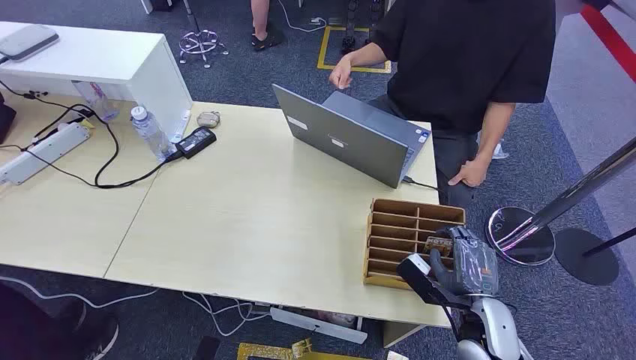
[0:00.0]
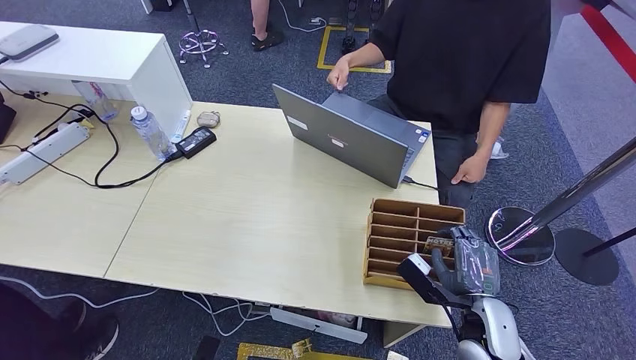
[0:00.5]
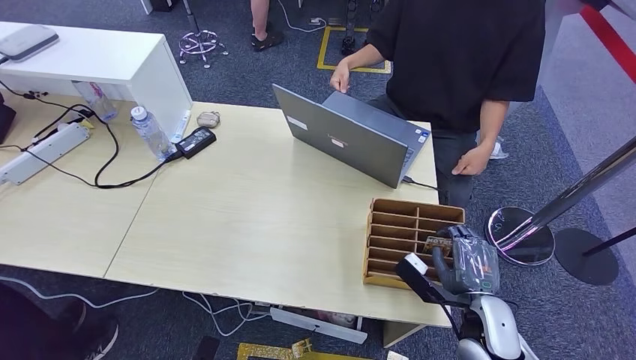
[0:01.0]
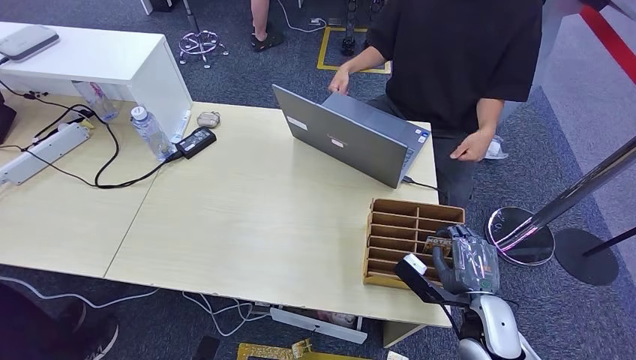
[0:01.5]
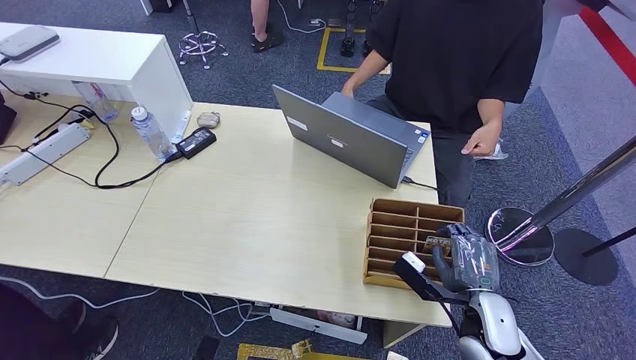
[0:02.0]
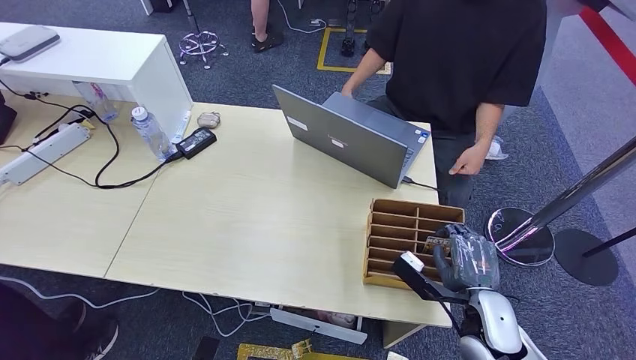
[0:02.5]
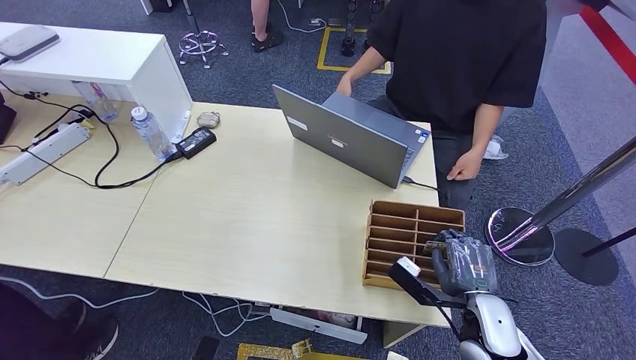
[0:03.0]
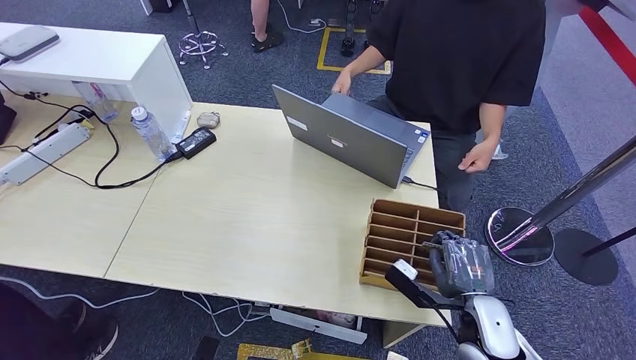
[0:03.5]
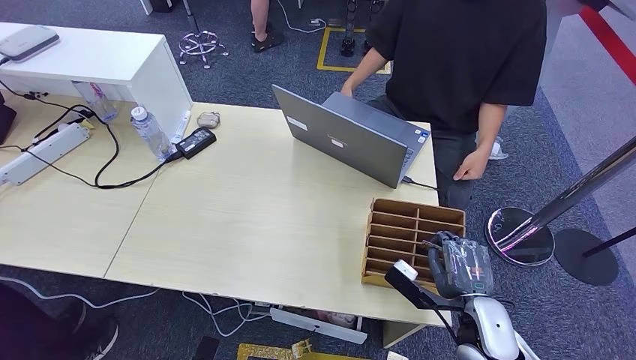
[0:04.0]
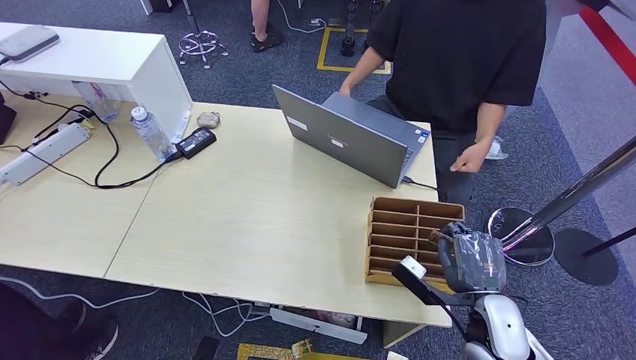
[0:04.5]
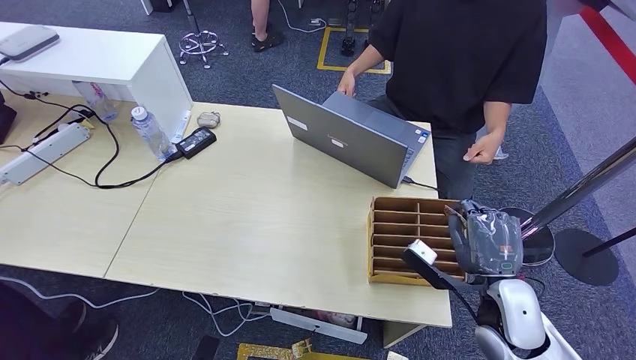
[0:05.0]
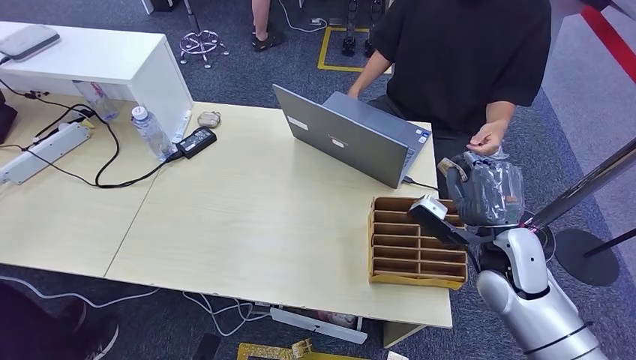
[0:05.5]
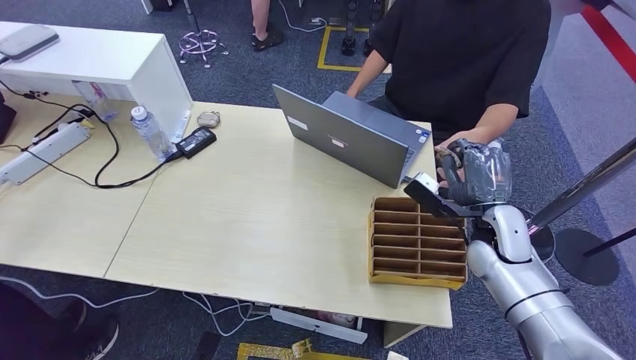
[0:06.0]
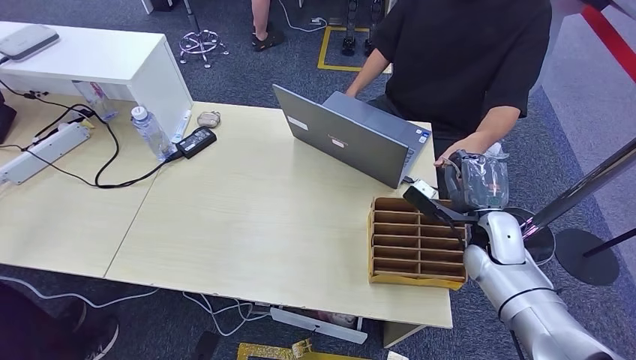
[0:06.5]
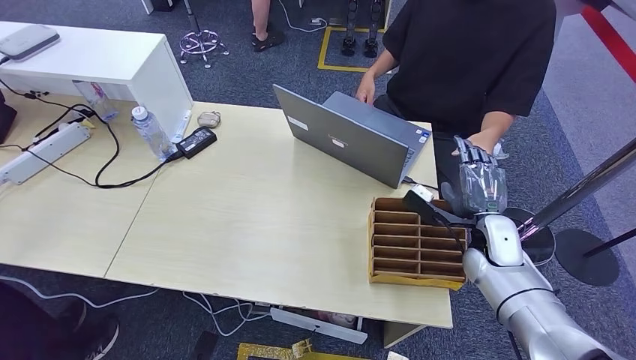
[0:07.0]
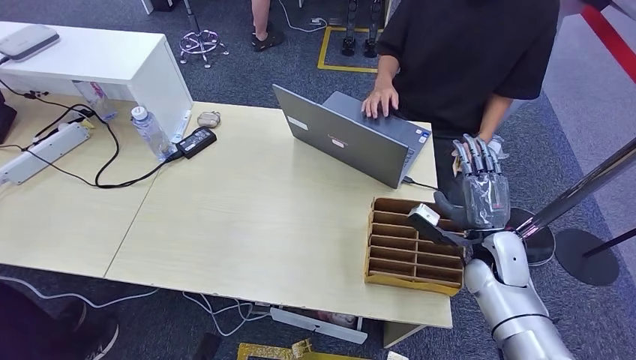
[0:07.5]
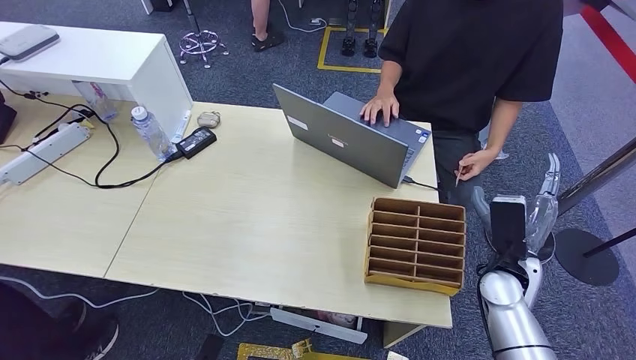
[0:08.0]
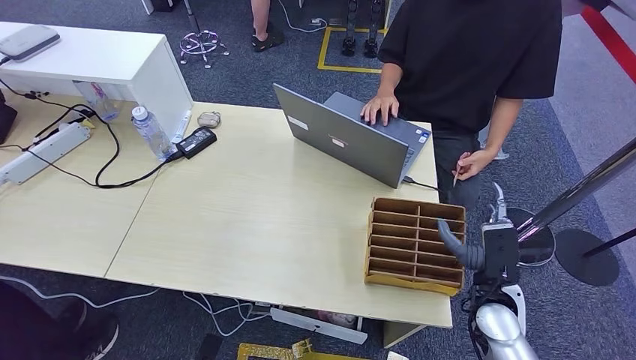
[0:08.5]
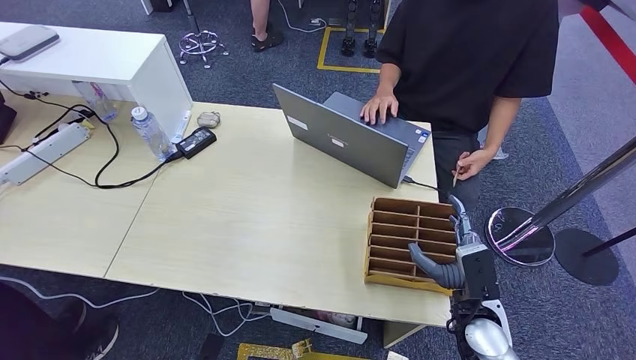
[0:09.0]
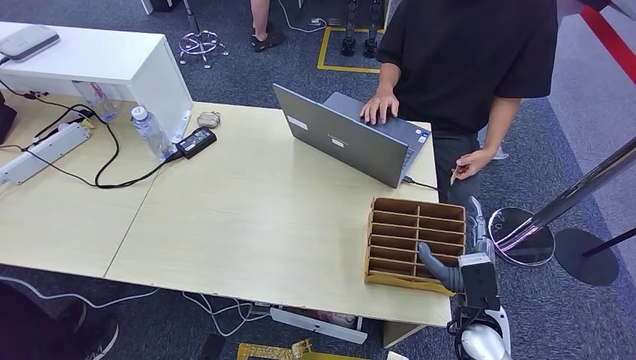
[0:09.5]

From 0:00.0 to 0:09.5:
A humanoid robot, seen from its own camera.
Step, from 0:00.0 to 0:04.5: Pick up the key card from the card box.
Step, from 0:05.0 to 0:09.5: Hand the key card to the target.
From 0:02.0 to 0:04.0: The hands move only a little.
From 0:04.0 to 0:05.5: The right hand heads upward and forward, covering approximately 15 cm.
From 0:05.5 to 0:07.5: The right hand travels downward by approximately 5 cm.
From 0:07.5 to 0:09.5: The right hand shifts some 10 cm backward and downward.
